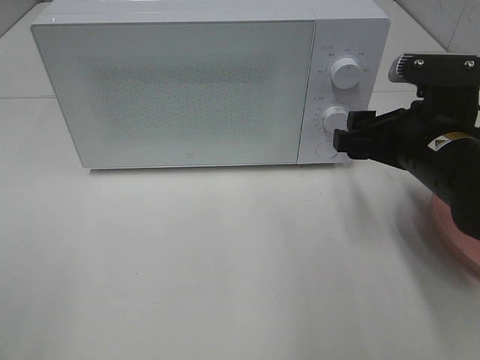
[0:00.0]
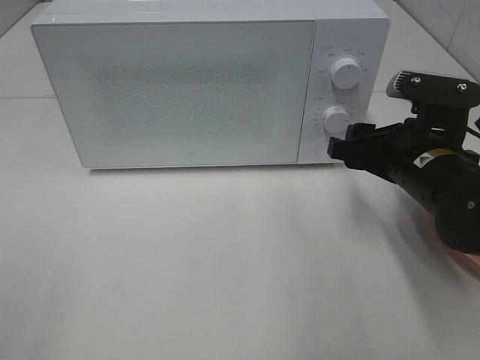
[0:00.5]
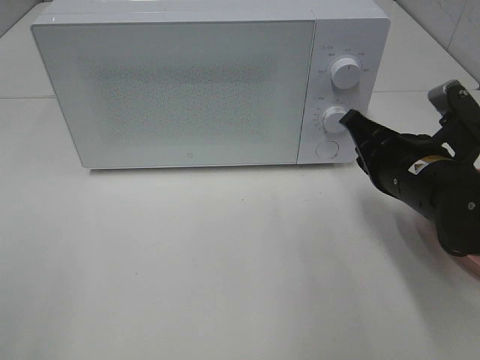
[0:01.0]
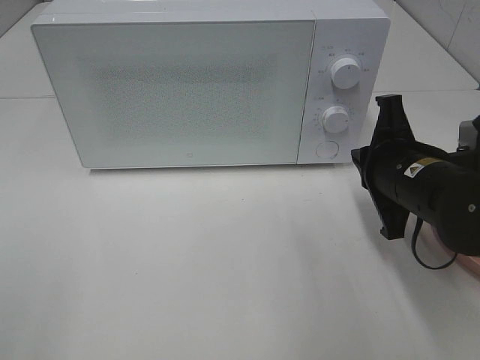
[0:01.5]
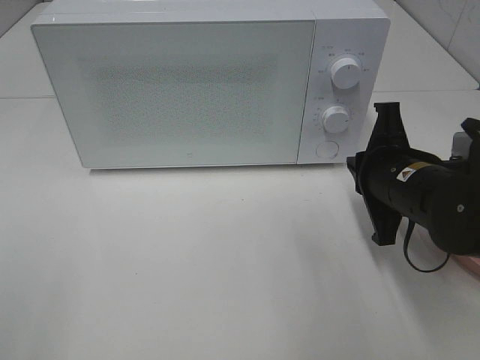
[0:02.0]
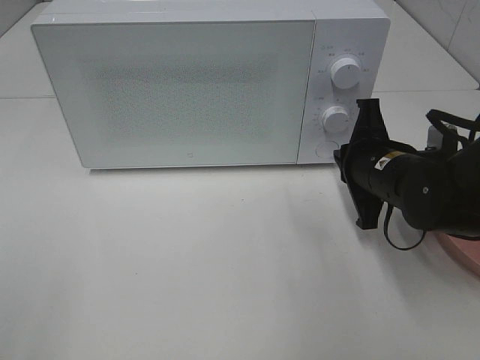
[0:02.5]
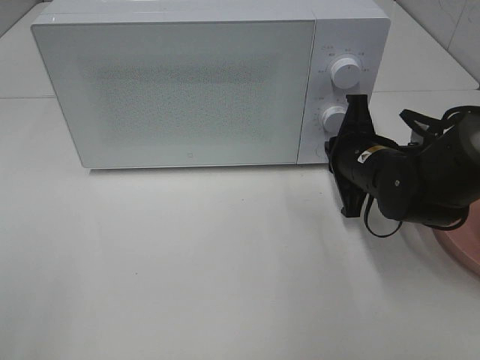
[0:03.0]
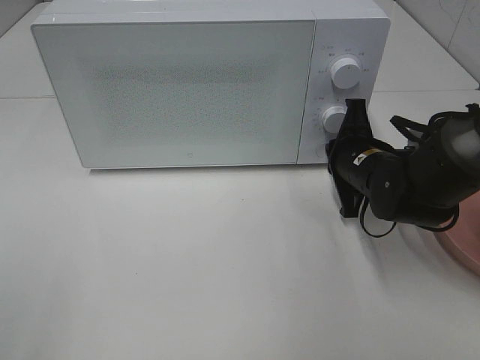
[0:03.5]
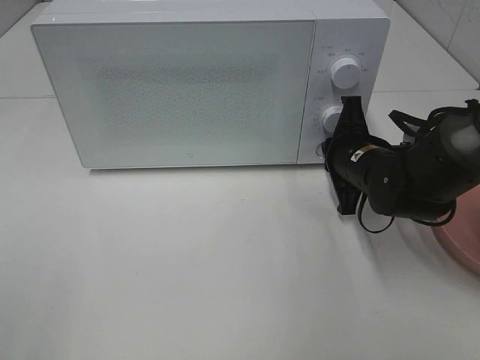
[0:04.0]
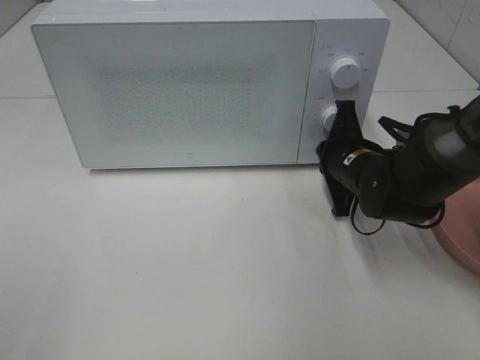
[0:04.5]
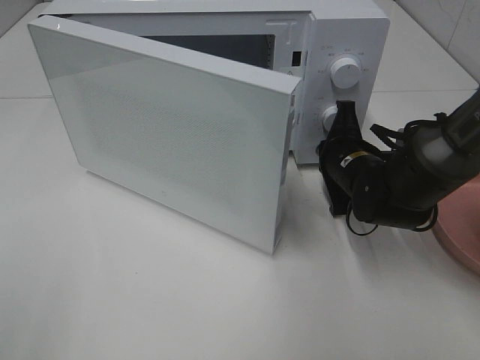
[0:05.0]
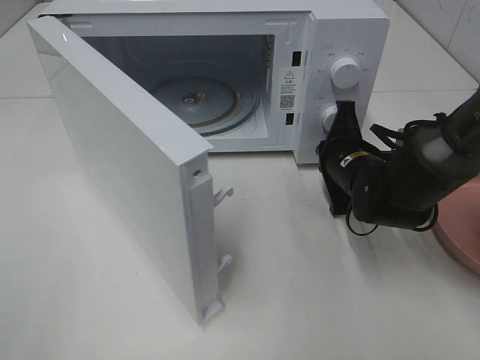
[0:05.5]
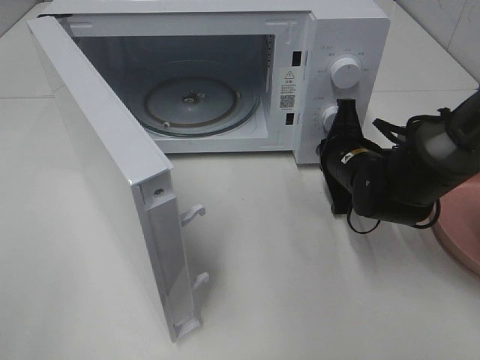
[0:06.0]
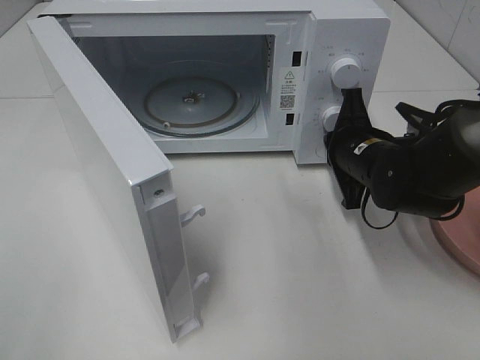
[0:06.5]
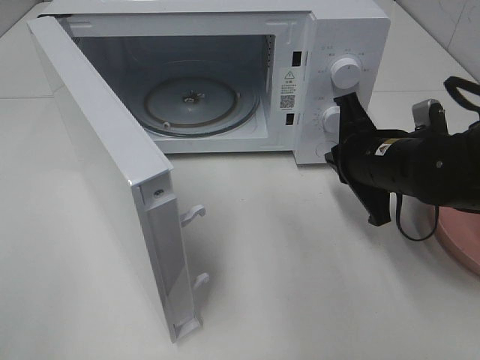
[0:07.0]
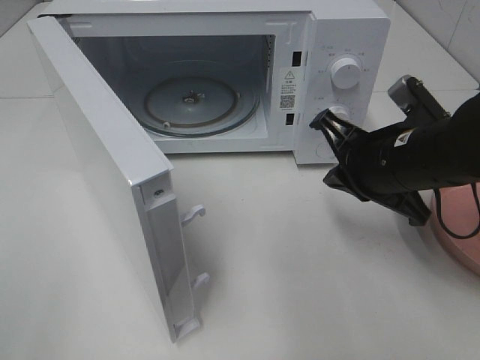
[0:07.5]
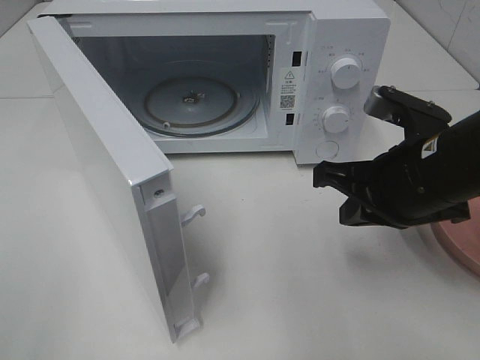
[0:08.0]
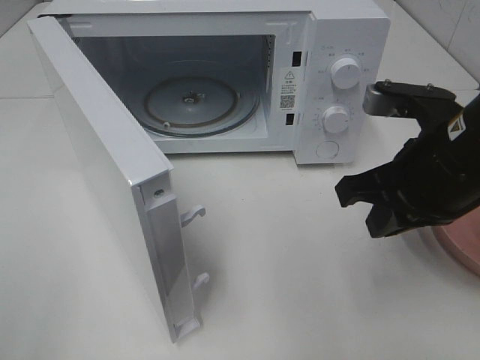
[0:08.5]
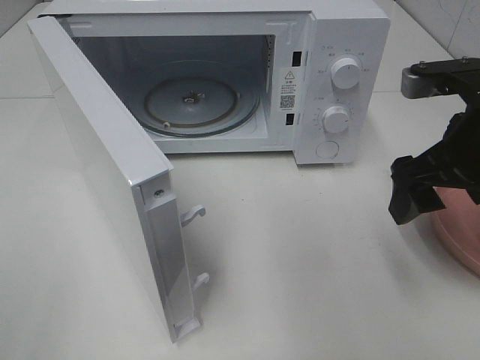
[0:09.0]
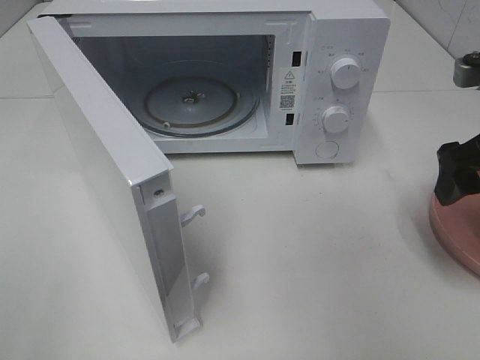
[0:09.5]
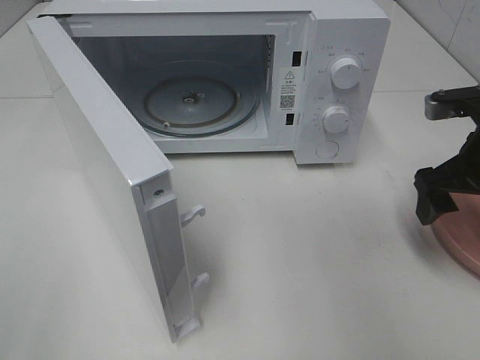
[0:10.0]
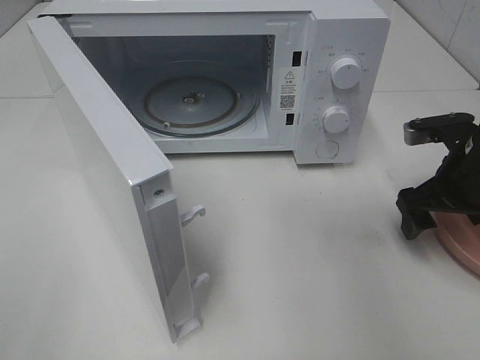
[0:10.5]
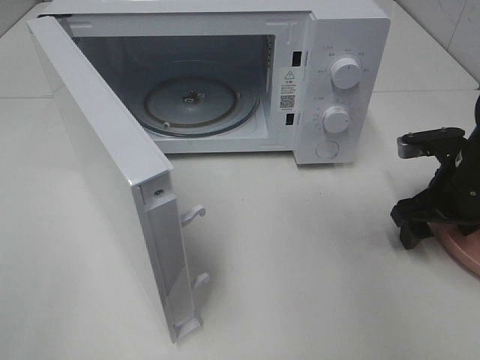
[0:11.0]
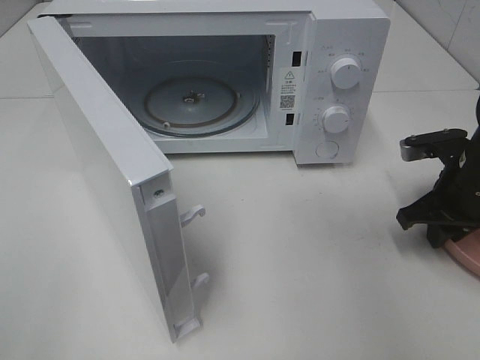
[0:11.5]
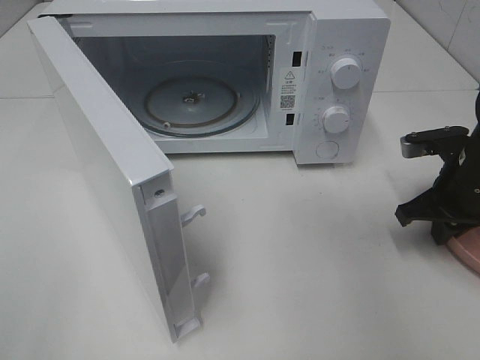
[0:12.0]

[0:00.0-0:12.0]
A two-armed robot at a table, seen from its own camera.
Task of the whole recording: Heat the burger.
Step, 0.0 to 6.0 s: Right hand: press the switch.
Step, 6.5 to 11.5 s: Right hand: grab the plate with the hamburger.
0.0 to 2.0 s: The right gripper closes up.
2.0 to 4.0 s: The right gripper is displaced forward by roughly 10 cm.
6.0 to 8.0 s: The right gripper travels backward and upward by roughly 15 cm.
8.0 to 10.0 s: The right gripper travels to the right and forward by approximately 10 cm, and opens its fingers.
10.0 to 12.0 s: The right gripper heads downward, covering about 5 cm, and closes up.

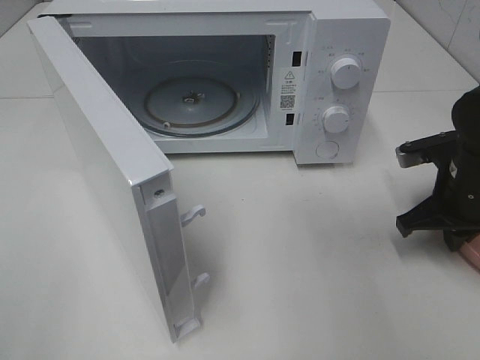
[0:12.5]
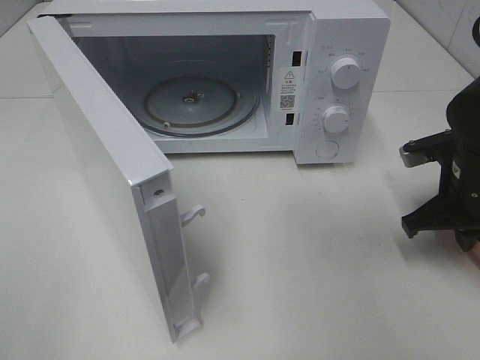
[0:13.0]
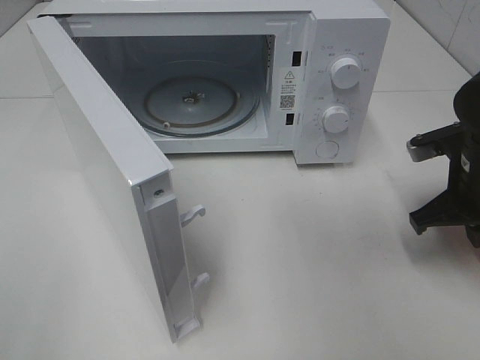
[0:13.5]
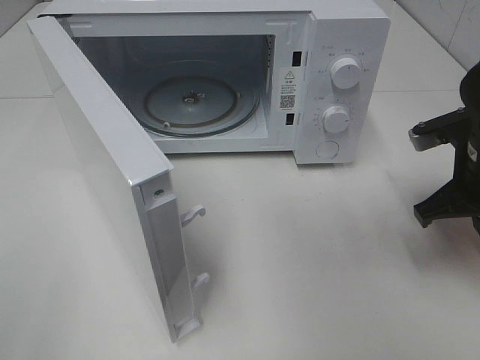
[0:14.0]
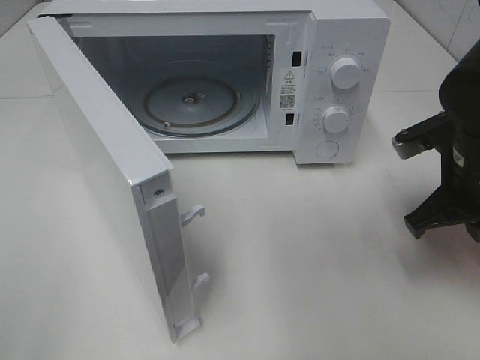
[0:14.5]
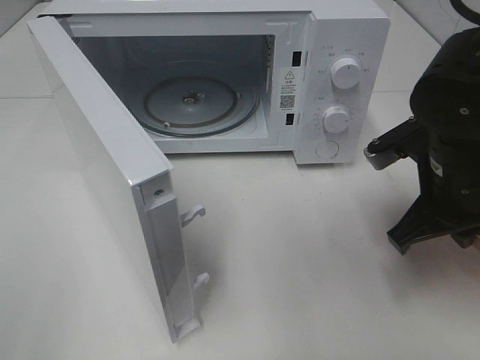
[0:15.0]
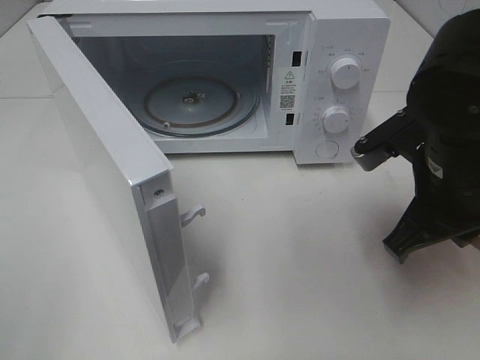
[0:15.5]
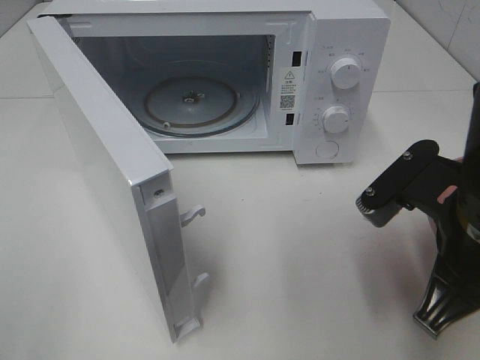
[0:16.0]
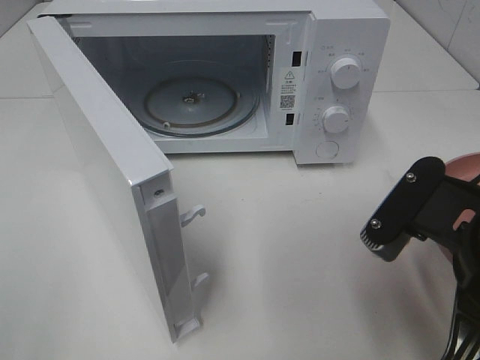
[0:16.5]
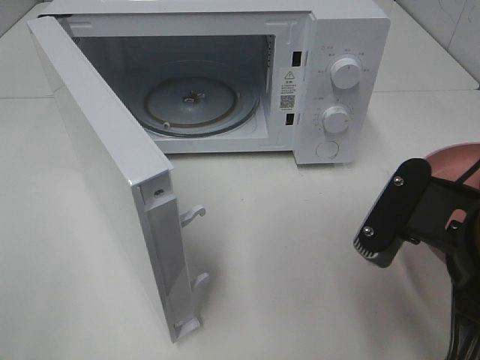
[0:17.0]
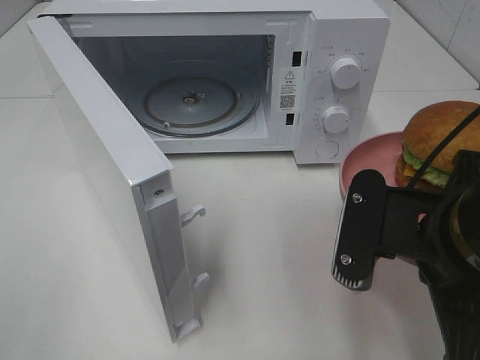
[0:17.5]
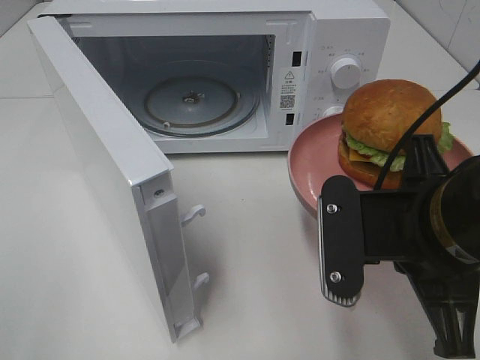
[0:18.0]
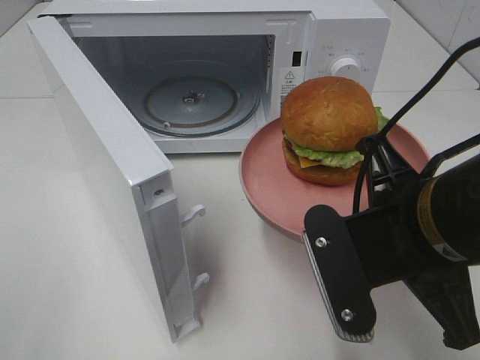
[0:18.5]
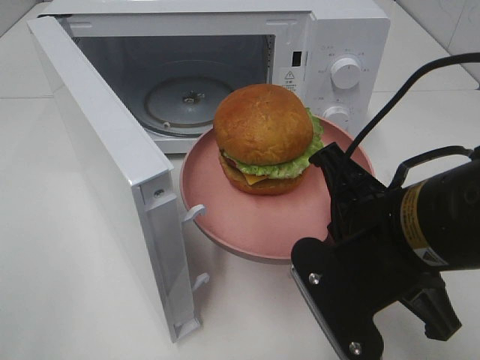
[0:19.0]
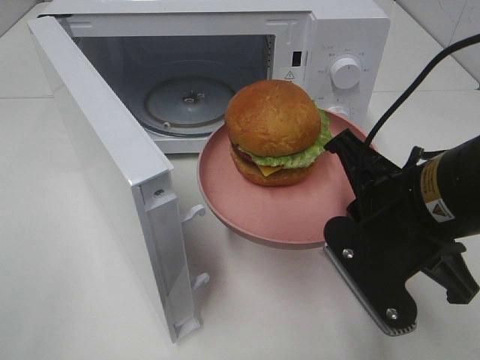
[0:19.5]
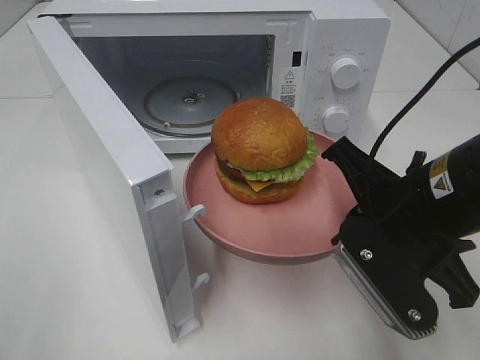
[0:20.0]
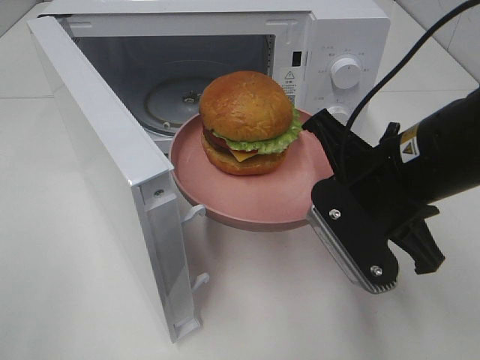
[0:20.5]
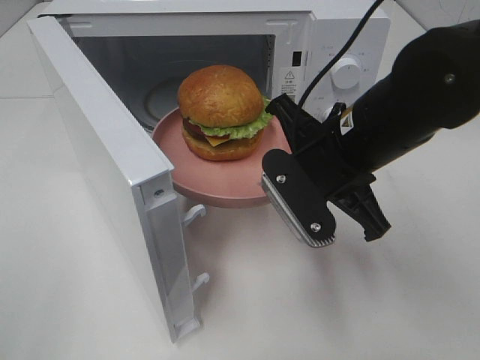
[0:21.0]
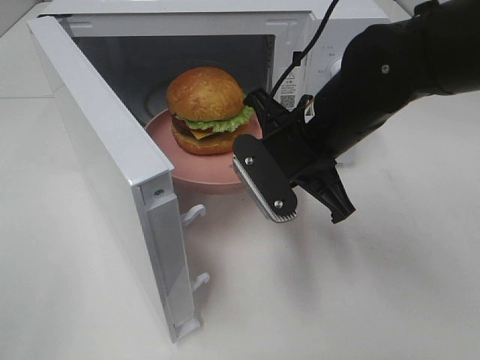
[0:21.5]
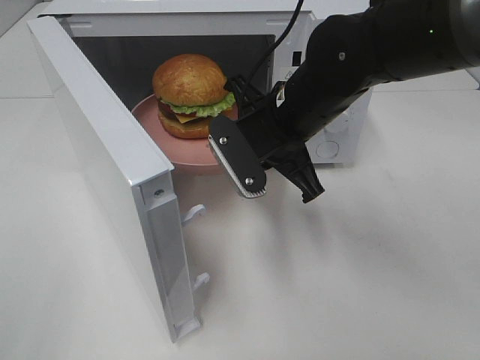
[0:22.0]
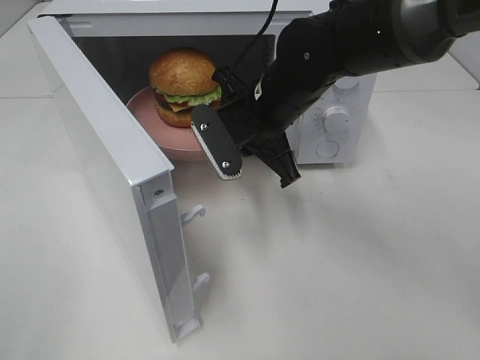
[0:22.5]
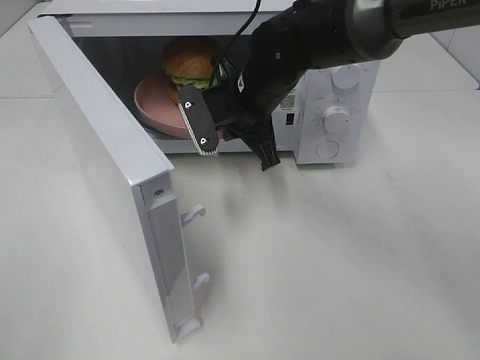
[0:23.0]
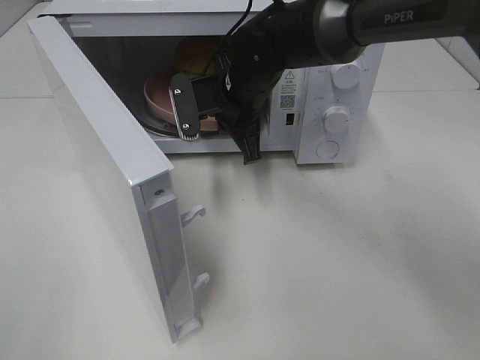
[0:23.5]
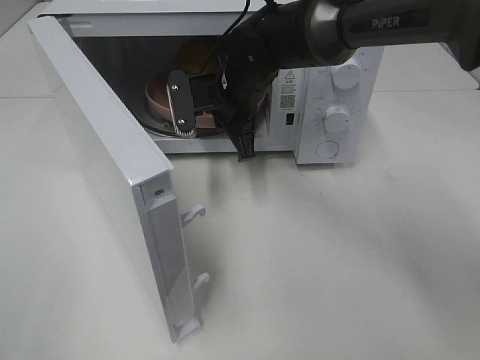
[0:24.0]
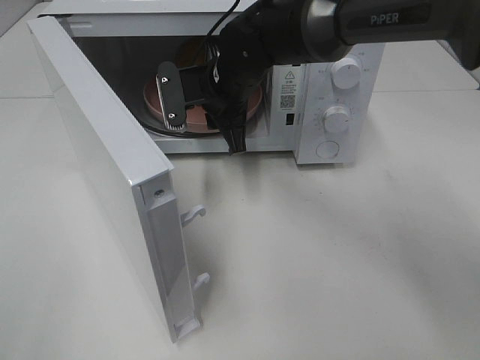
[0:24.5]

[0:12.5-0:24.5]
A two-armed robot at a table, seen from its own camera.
Task of the whole recording: Heat the burger.
Step, 12.5 to 24.0 s: Right hand: place the plate in the microwave.
12.5 to 14.5 s: The right gripper shifts some 5 cm upward.
14.5 to 16.5 s: The right gripper moves backward and to the left, some 15 cm.
18.5 to 20.5 s: The right gripper goes about 5 cm forward.
20.5 to 22.5 s: The right gripper heads forward and to the left, covering about 15 cm.
22.5 to 24.5 s: The right gripper moves forward, some 5 cm.

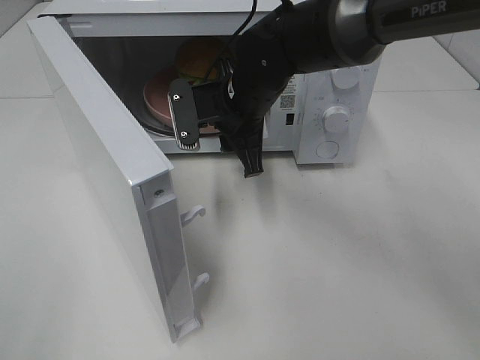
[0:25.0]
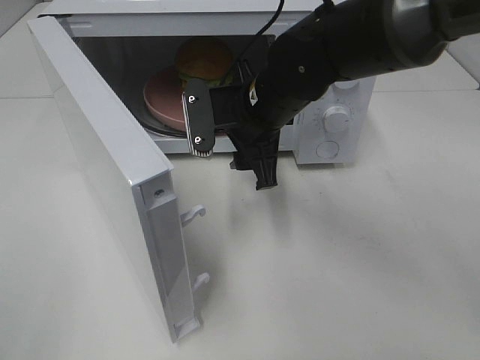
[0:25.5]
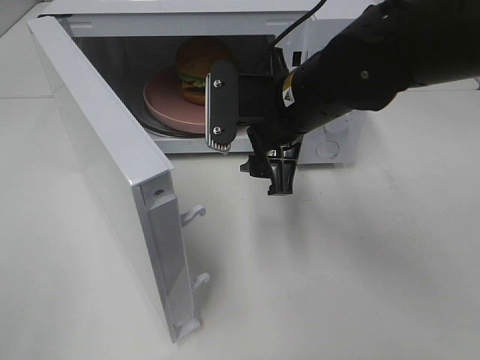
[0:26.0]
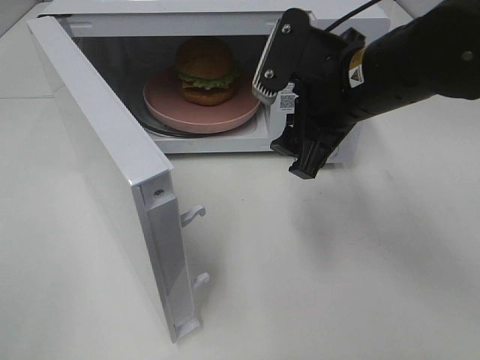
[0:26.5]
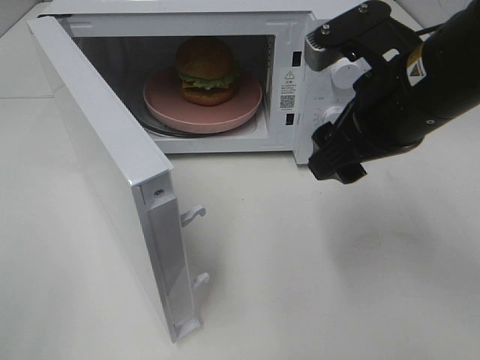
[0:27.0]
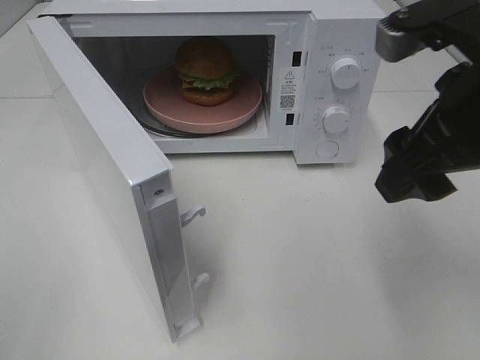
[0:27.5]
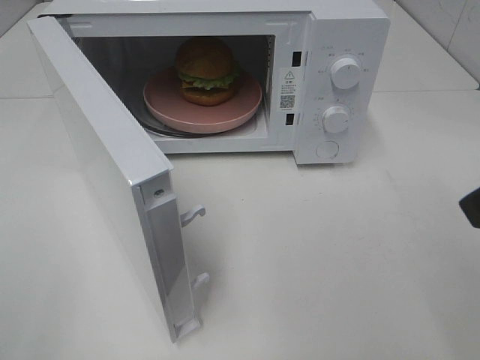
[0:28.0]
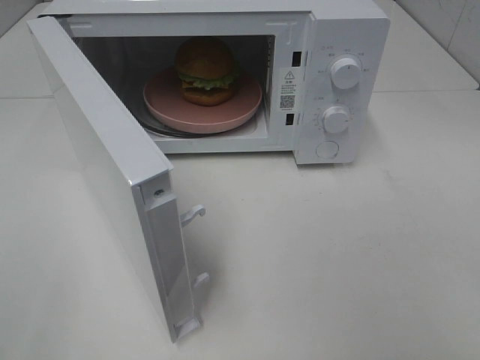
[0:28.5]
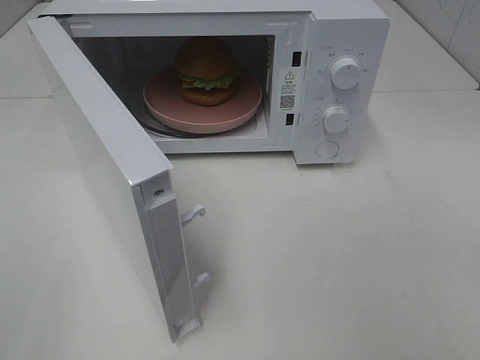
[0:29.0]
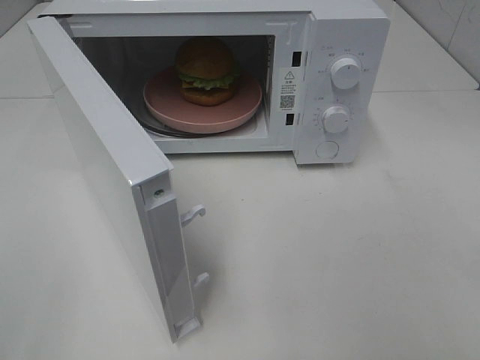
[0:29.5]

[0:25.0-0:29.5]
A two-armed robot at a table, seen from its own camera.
Task of the whole recording: Heat the burger.
25.0 to 27.0 s: The right gripper travels backward, to the right and upward by some 20 cm.
27.0 to 29.5 s: The right gripper moves backward and to the right, roughly 30 cm.
